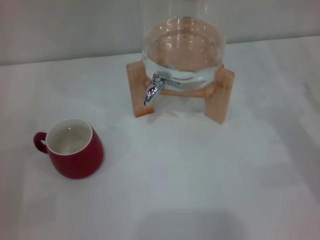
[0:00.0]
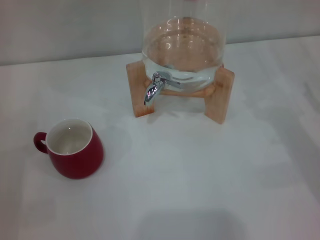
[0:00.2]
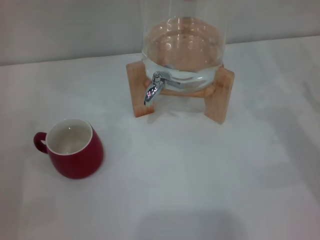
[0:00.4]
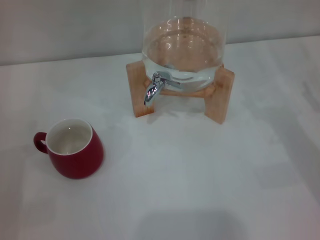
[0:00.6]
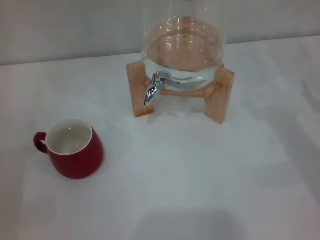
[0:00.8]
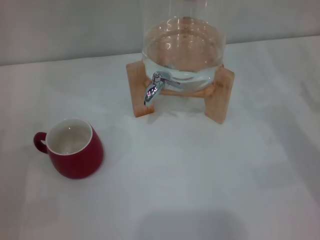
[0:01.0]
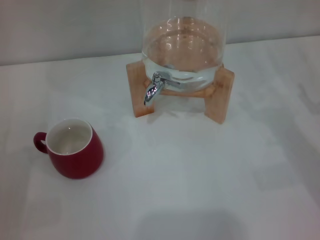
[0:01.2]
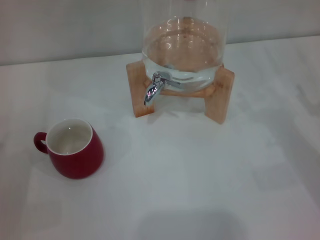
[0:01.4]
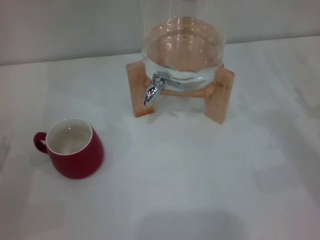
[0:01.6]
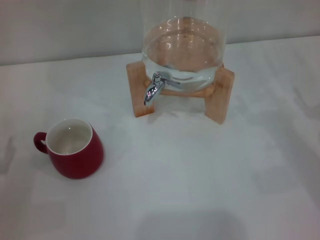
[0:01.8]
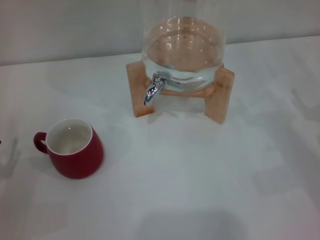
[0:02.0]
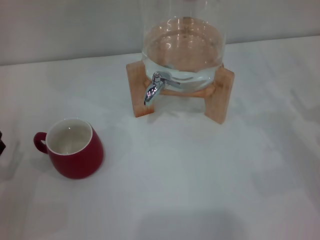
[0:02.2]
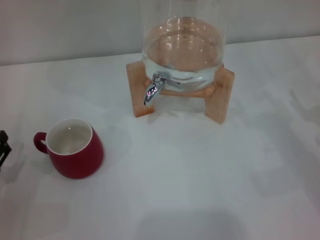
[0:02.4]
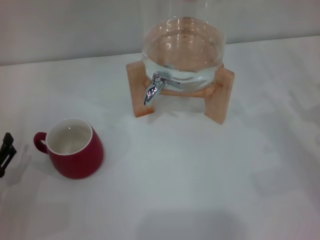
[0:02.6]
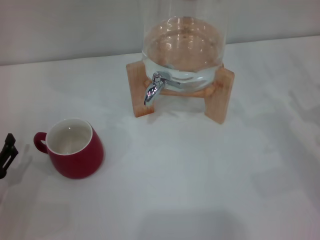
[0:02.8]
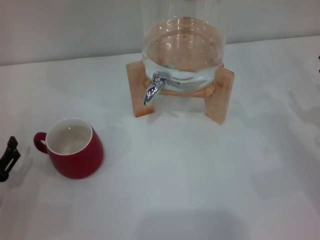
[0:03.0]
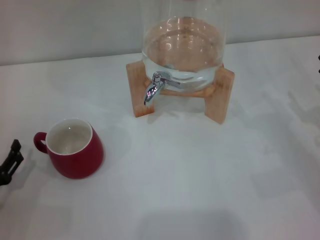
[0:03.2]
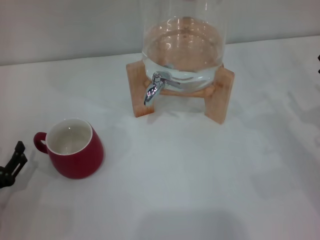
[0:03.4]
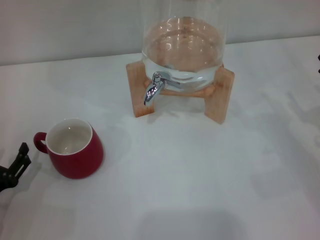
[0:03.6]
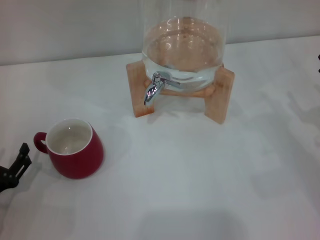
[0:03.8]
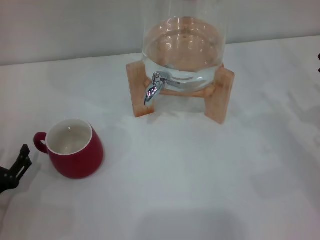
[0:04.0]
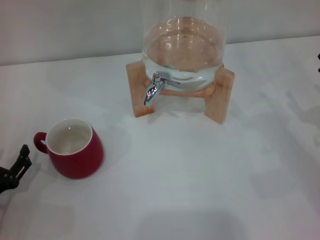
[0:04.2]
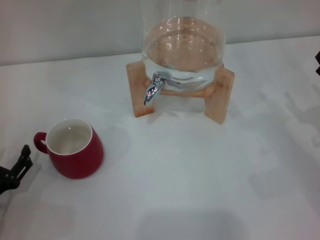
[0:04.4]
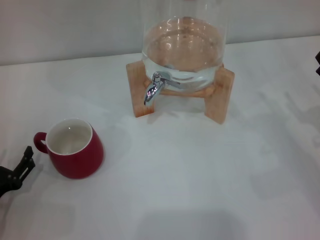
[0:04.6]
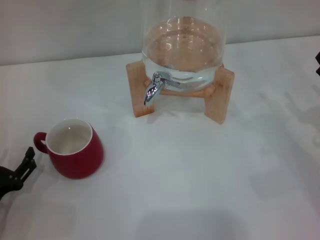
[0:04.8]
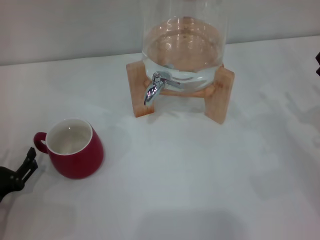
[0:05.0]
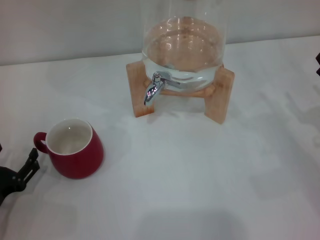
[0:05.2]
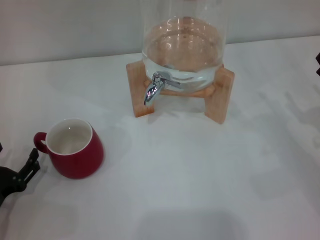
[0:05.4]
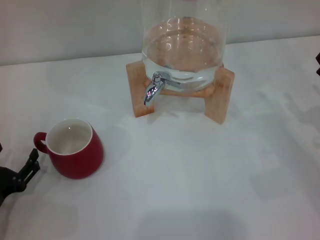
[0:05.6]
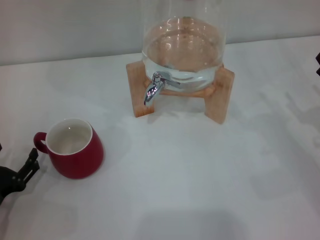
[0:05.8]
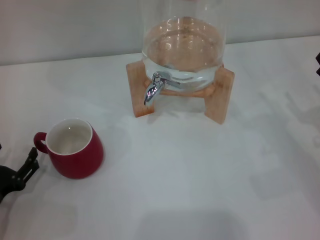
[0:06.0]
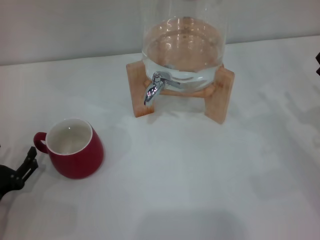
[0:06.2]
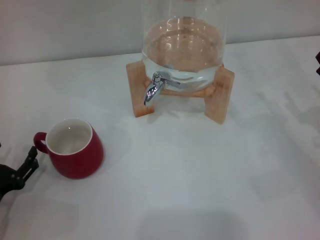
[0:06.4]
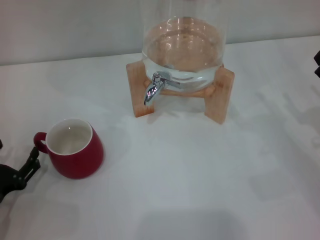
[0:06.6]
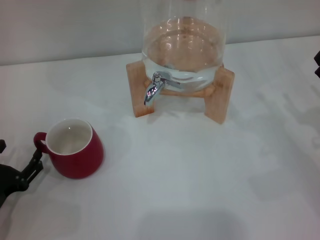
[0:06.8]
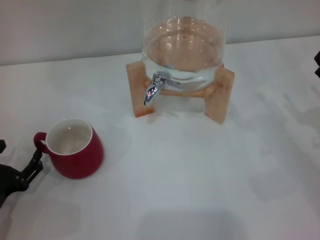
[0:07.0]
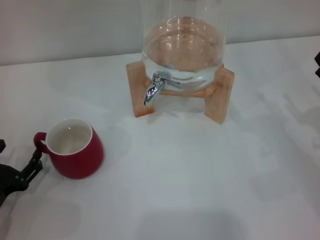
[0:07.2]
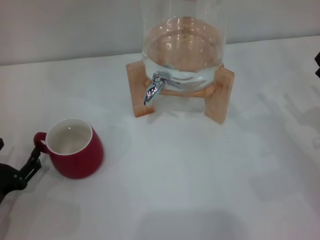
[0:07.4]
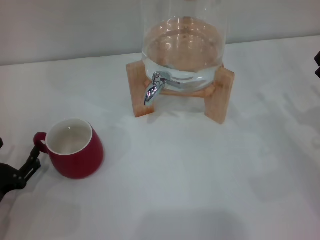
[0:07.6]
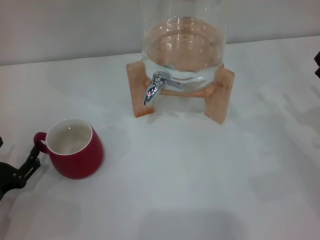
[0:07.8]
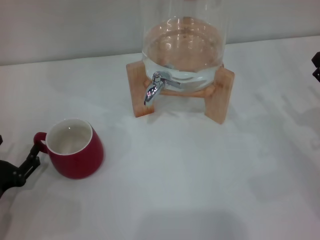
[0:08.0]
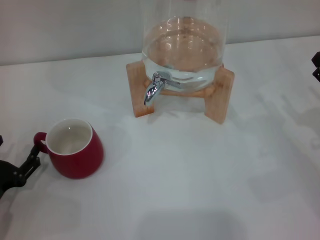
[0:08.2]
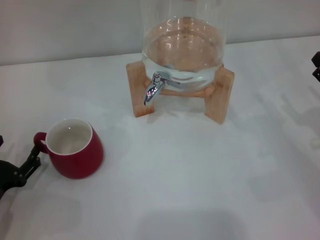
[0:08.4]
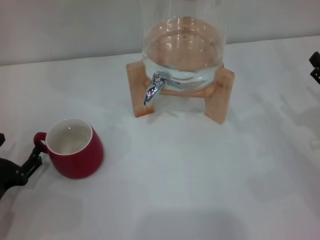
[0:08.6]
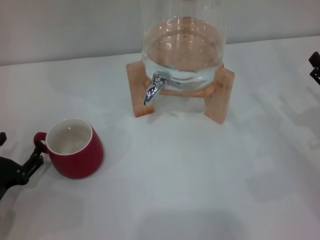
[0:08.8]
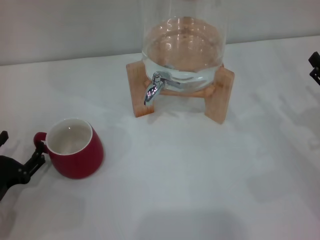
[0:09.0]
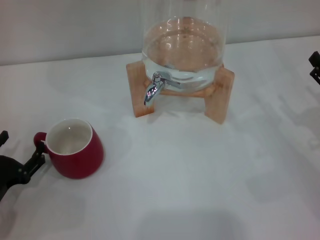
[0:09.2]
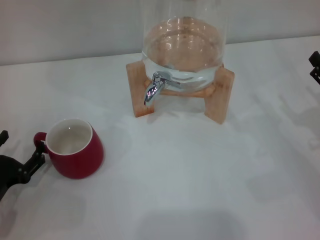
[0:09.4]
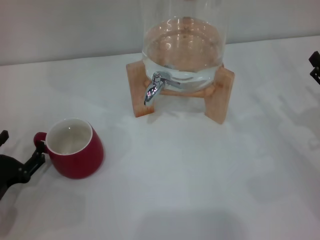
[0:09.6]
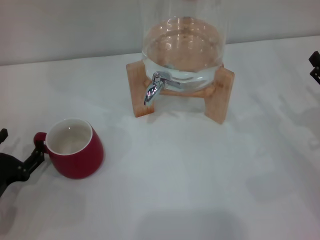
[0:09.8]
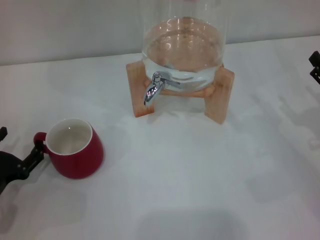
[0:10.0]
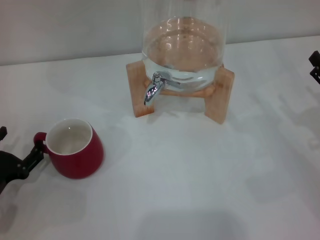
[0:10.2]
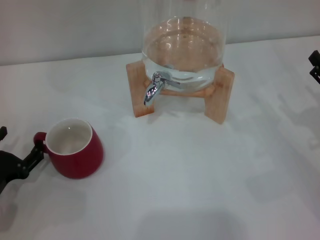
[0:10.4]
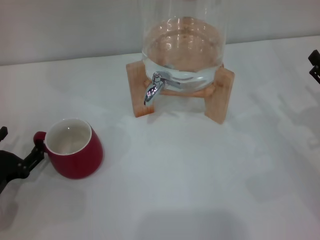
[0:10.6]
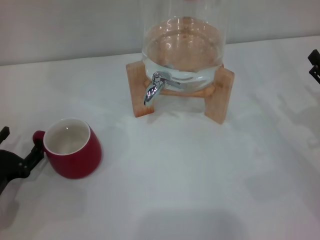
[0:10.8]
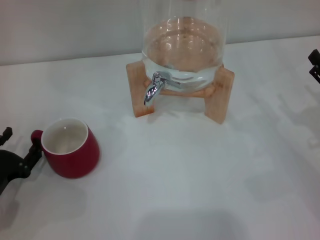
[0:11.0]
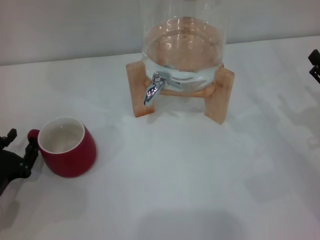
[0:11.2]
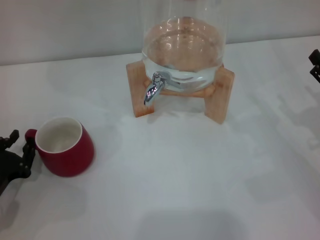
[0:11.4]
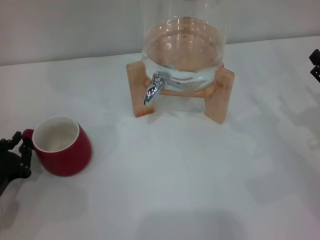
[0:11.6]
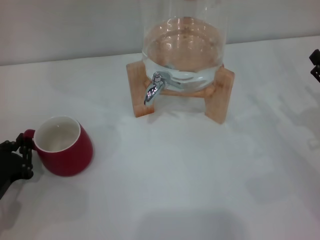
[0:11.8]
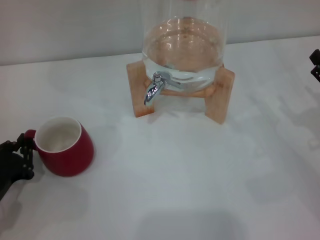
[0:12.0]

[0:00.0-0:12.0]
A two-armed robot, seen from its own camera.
Task of the whole recording: the left gripper pick up the red cup and place it horizontally under the faucet, the right gripper turn on the faucet to fill the cup, and then turn off the faucet.
0:03.0 to 0:04.4: Neither gripper changes place.
0:04.4 to 0:06.0: Neither gripper changes place.
0:06.0 to 0:07.6: Both grippers stay about where they are.
0:07.6 to 0:09.0: Both grippers stay about where they are.
0:09.0 to 0:10.4: Neither gripper changes place.
0:10.4 to 0:12.0: The left gripper closes.

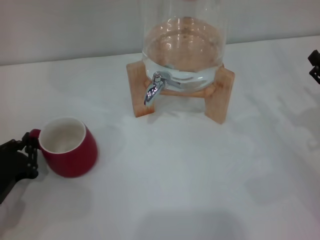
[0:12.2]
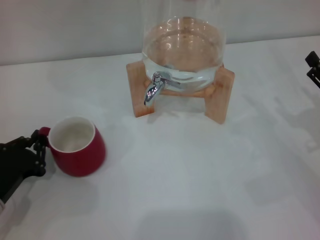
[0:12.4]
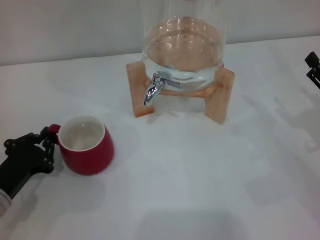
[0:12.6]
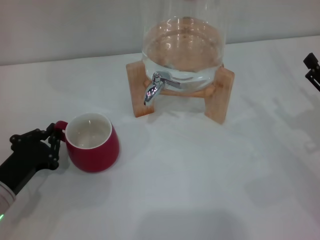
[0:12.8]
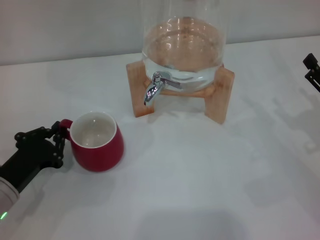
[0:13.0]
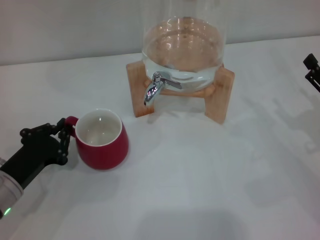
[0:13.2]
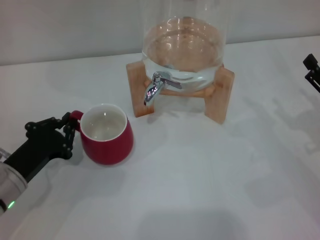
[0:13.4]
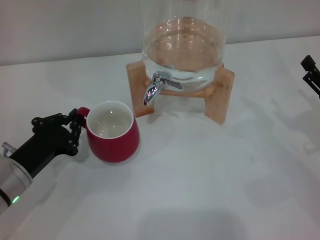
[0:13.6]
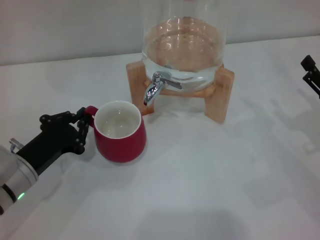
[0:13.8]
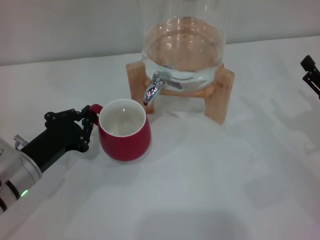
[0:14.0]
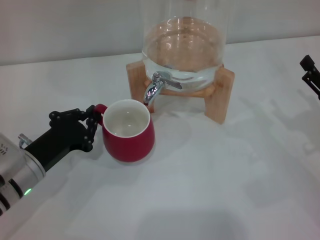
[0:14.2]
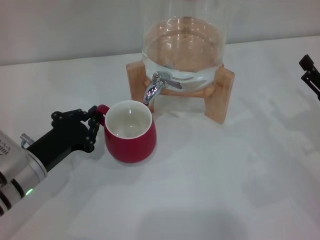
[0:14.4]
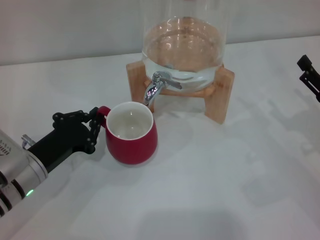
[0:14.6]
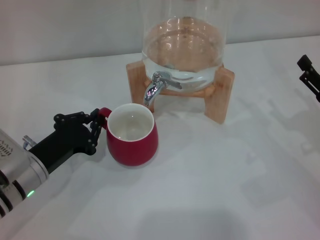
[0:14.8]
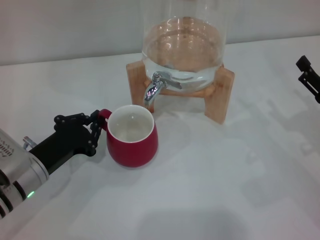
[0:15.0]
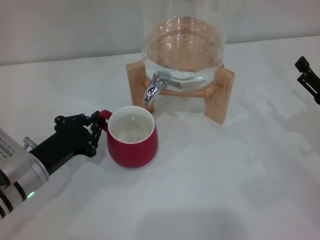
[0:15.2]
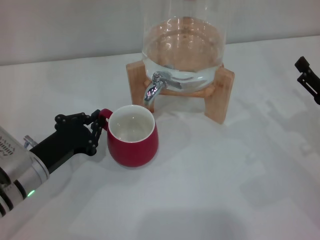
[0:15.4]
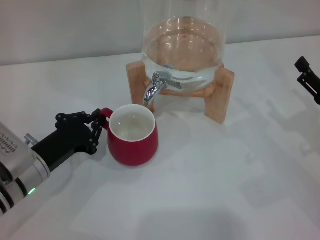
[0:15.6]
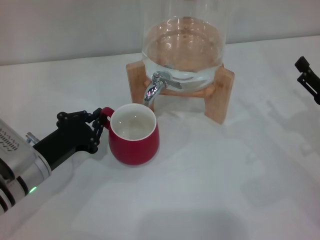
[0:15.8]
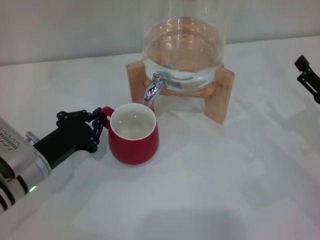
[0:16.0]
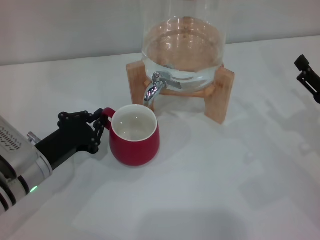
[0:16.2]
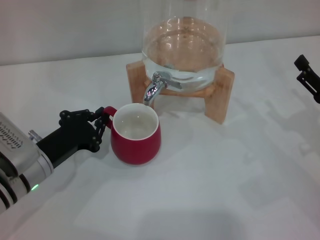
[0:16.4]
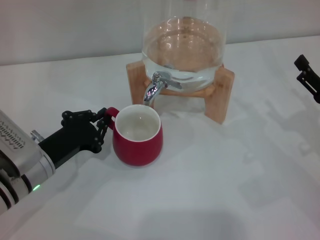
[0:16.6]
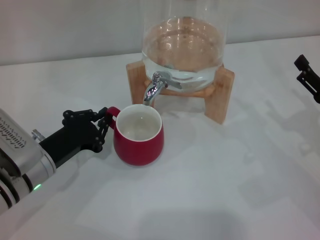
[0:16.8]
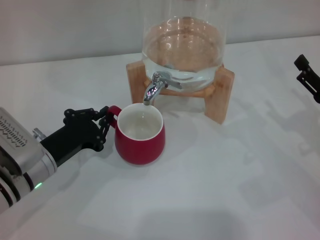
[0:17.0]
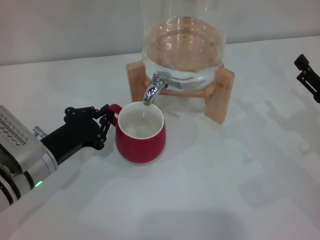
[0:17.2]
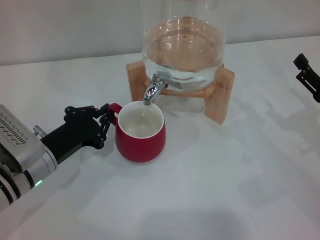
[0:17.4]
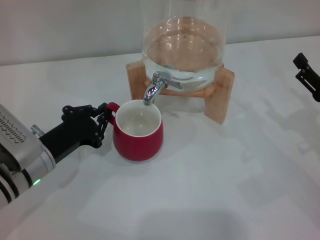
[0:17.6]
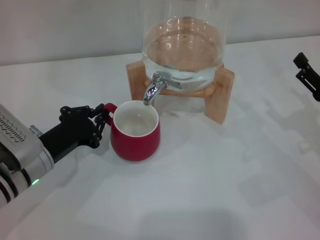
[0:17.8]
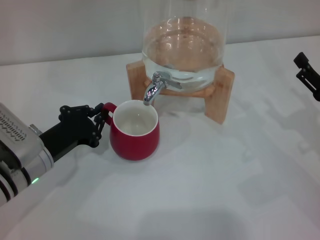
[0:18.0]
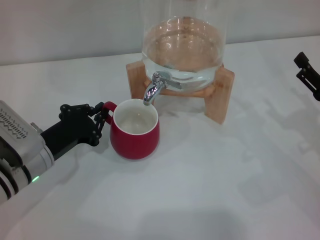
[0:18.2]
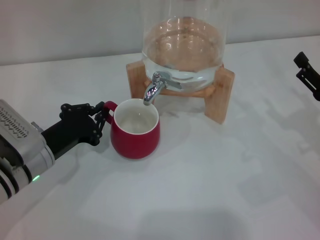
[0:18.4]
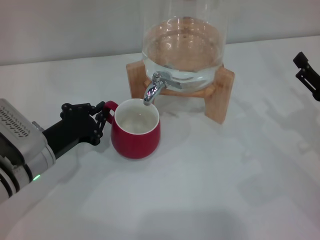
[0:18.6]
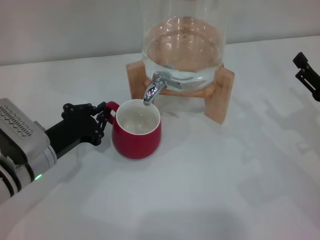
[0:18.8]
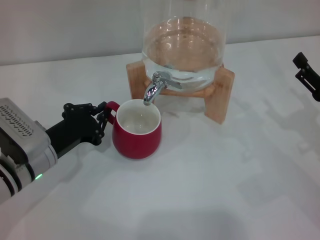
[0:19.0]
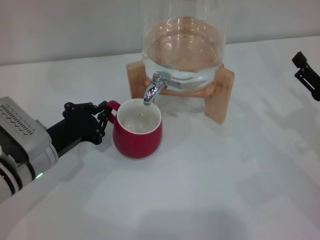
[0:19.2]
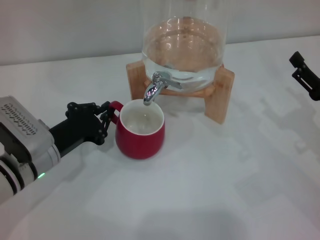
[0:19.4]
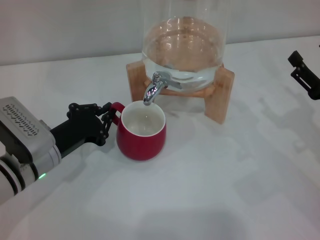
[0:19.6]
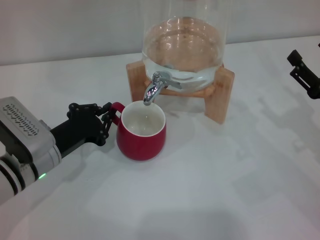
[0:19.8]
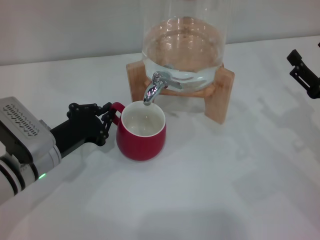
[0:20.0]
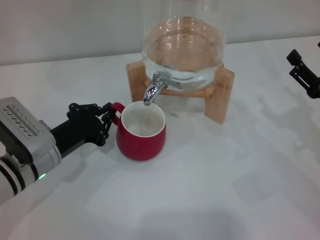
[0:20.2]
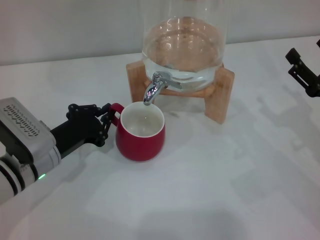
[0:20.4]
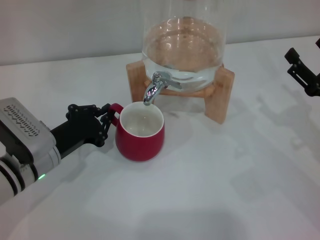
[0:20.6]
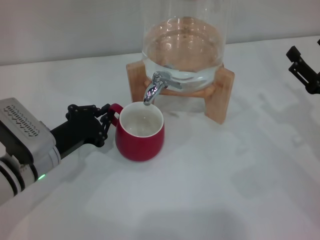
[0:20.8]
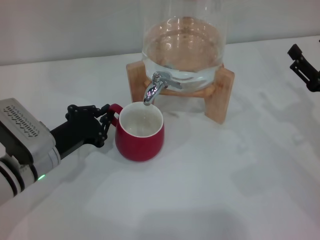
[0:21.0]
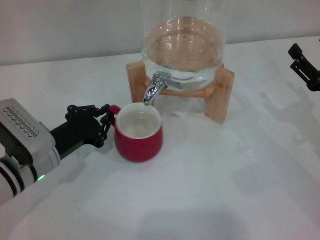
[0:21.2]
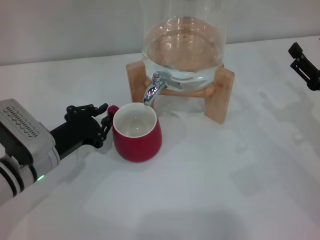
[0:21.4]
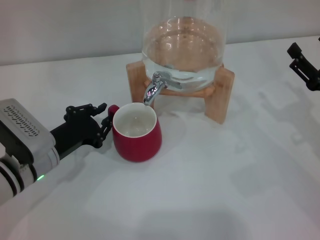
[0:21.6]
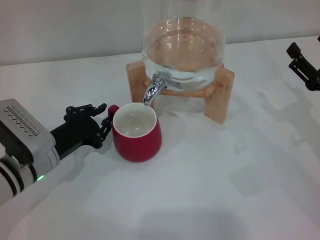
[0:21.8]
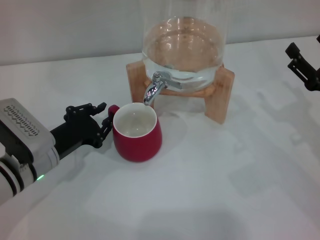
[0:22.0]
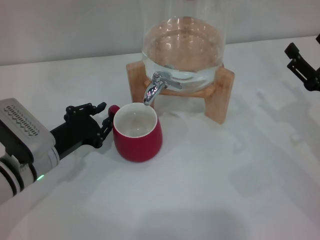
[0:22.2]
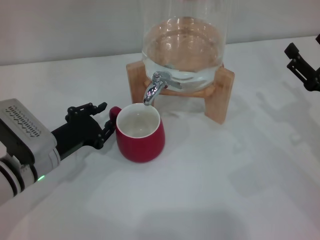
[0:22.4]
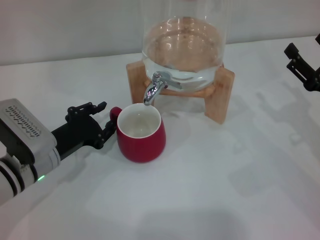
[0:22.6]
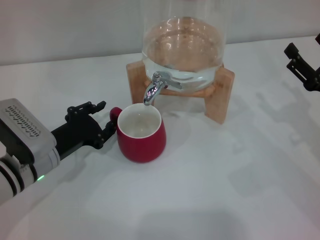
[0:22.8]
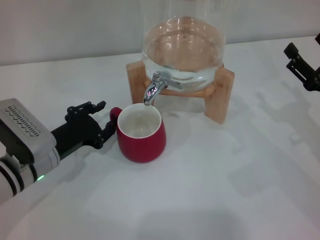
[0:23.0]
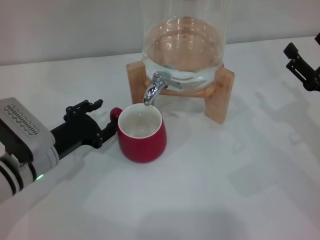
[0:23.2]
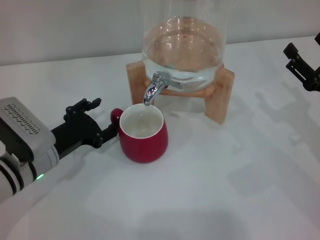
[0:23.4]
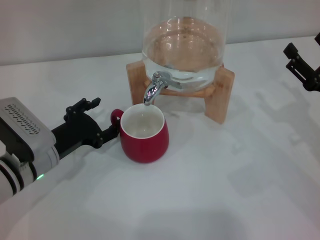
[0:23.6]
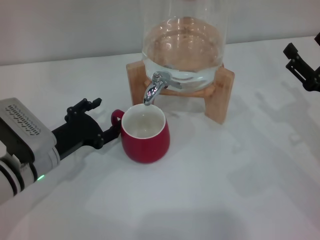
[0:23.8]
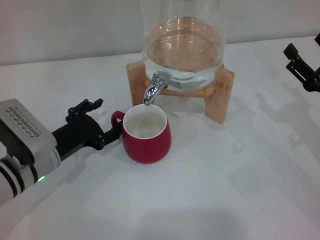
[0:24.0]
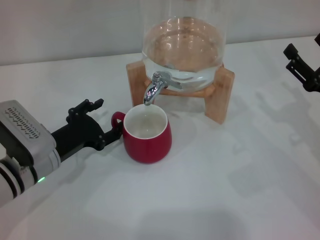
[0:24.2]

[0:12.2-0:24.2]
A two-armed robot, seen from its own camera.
Task of the whole recording: the left gripper pick up the red cup and place it horizontally under the faucet, the right gripper turn on the faucet to fill the cup, and then turn off the faucet.
0:12.2 to 0:13.8: The left gripper goes roughly 5 cm to the right.
0:13.8 to 0:15.2: The grippers move only a little.
0:15.2 to 0:16.6: Neither gripper changes place.
0:16.6 to 0:18.2: Neither gripper changes place.
0:18.2 to 0:19.8: Both grippers stay put.
0:19.8 to 0:21.2: Both grippers stay about where they are.
0:21.2 to 0:22.6: The left gripper opens.
0:22.6 to 0:24.2: The left gripper opens its fingers.
